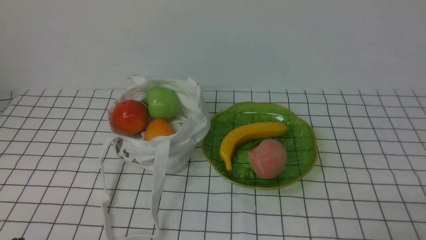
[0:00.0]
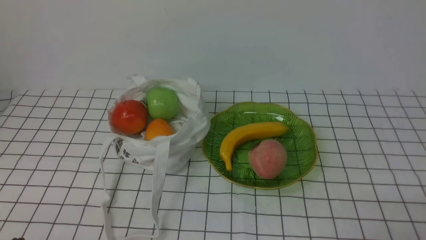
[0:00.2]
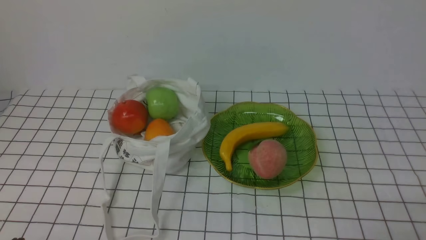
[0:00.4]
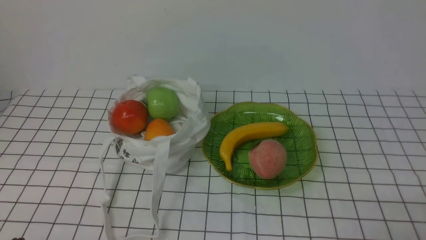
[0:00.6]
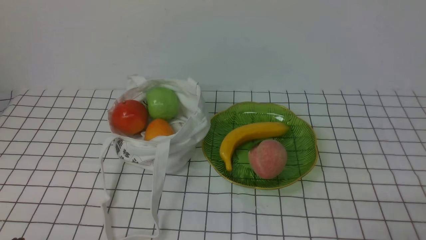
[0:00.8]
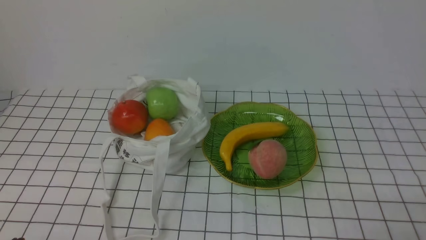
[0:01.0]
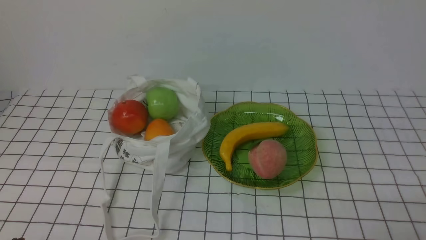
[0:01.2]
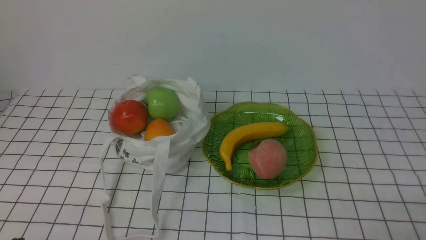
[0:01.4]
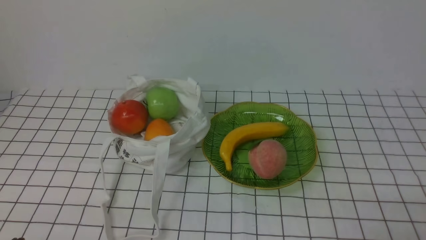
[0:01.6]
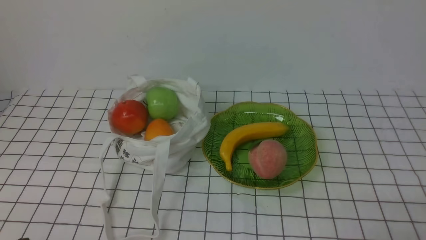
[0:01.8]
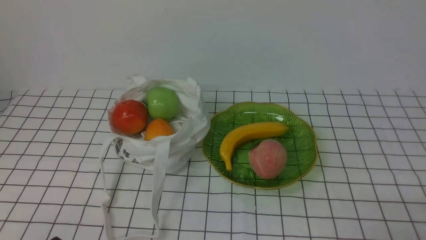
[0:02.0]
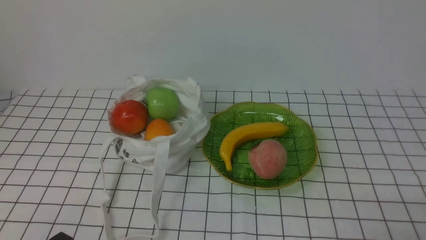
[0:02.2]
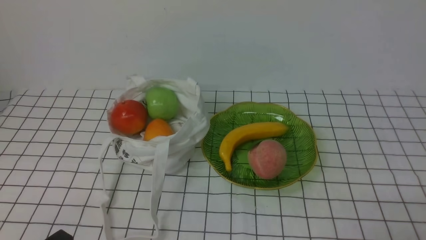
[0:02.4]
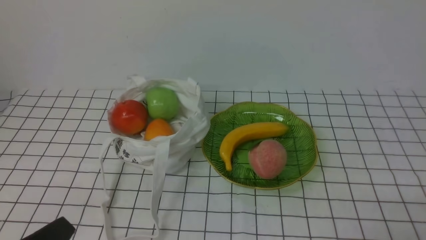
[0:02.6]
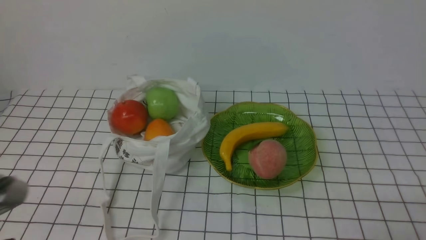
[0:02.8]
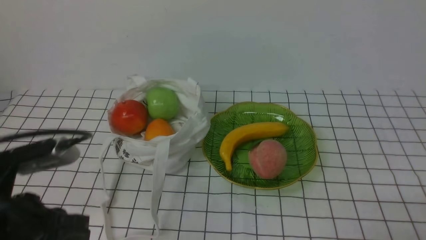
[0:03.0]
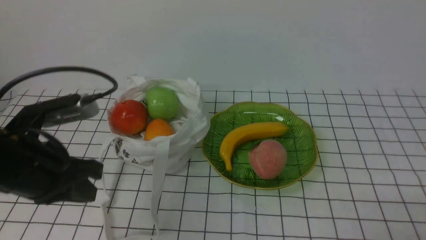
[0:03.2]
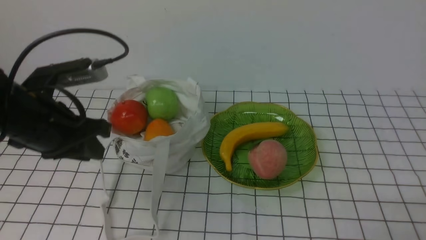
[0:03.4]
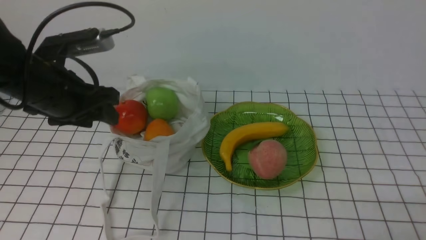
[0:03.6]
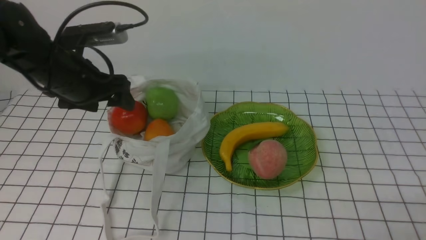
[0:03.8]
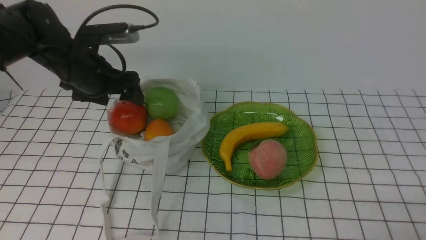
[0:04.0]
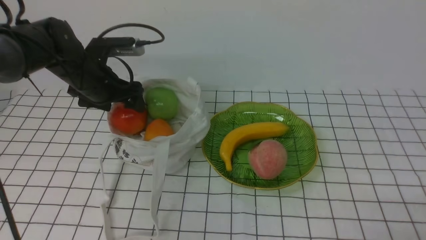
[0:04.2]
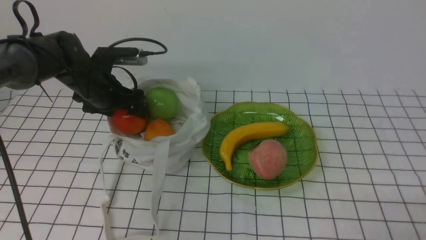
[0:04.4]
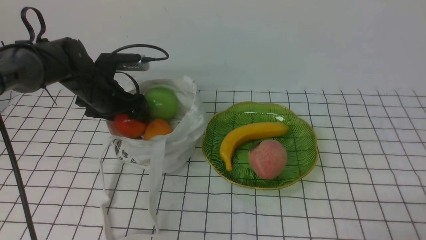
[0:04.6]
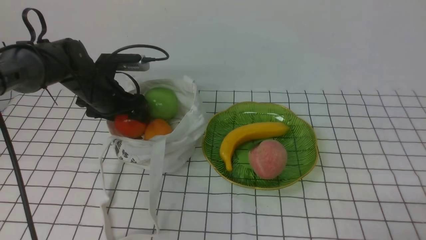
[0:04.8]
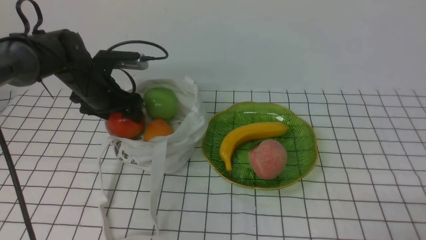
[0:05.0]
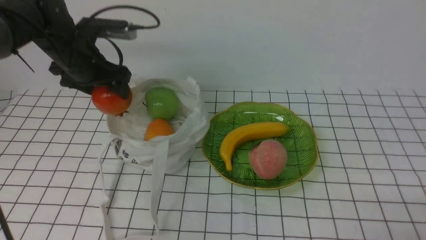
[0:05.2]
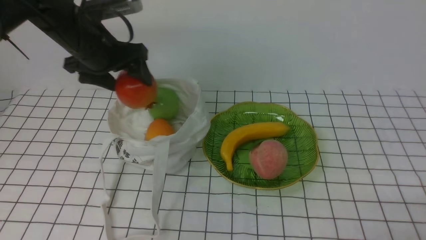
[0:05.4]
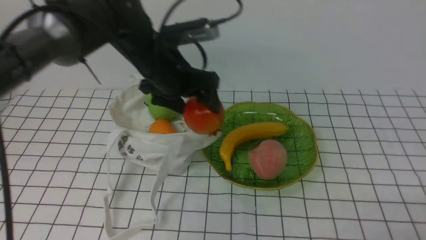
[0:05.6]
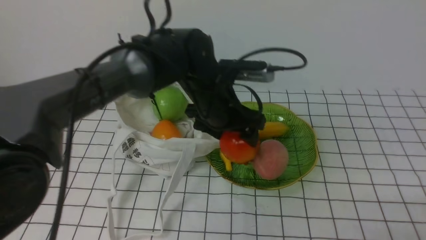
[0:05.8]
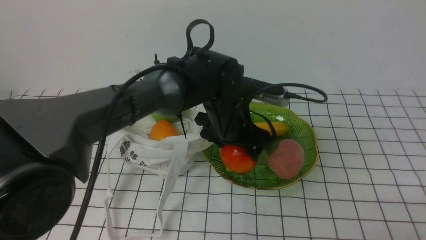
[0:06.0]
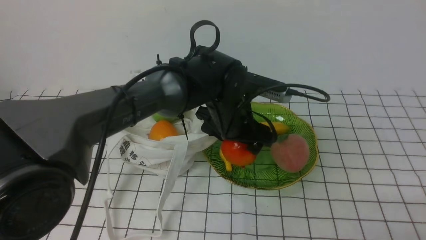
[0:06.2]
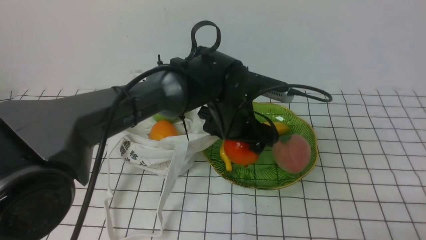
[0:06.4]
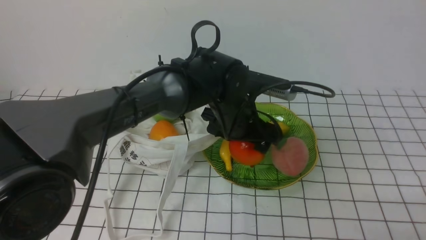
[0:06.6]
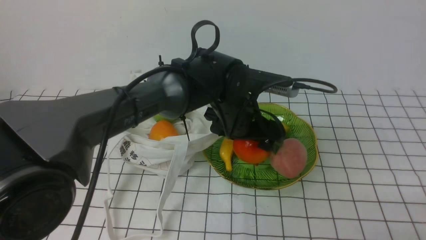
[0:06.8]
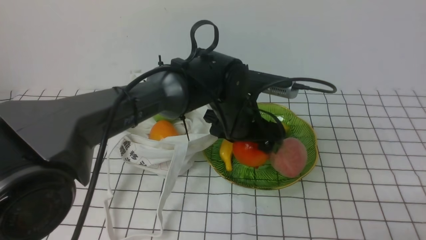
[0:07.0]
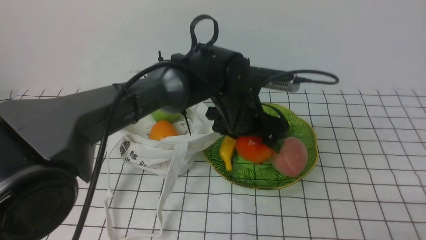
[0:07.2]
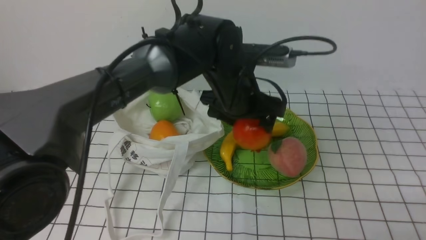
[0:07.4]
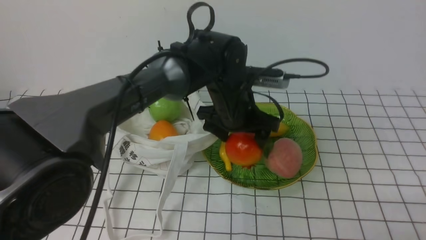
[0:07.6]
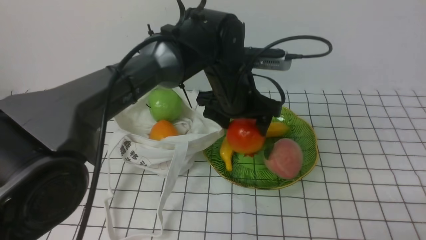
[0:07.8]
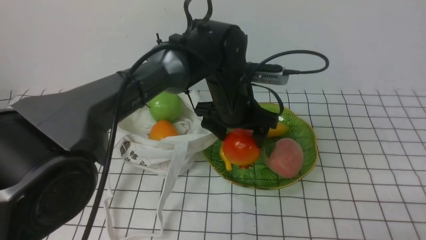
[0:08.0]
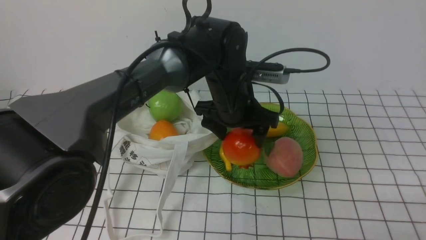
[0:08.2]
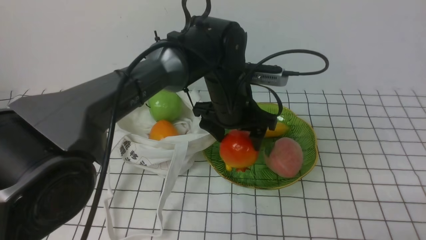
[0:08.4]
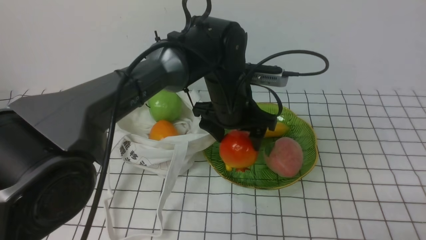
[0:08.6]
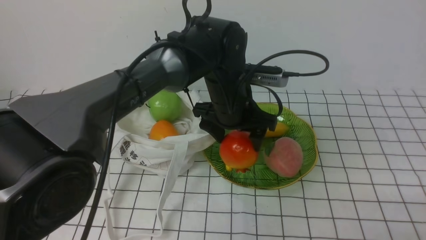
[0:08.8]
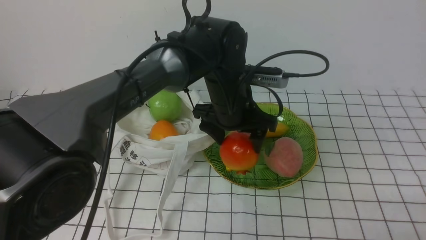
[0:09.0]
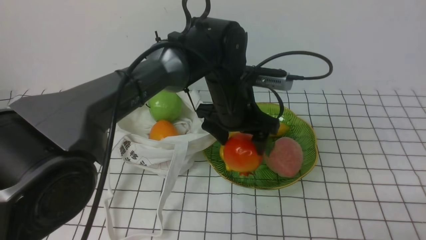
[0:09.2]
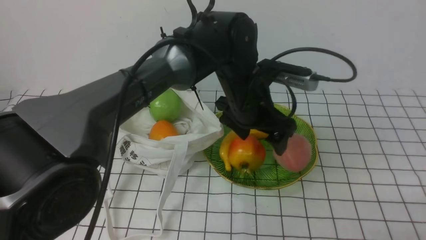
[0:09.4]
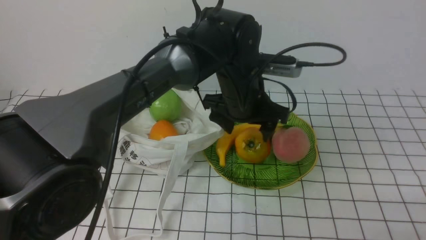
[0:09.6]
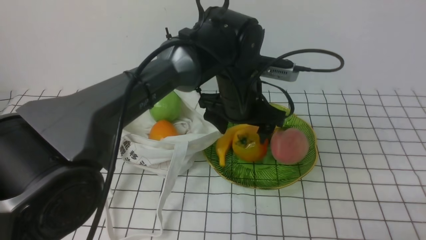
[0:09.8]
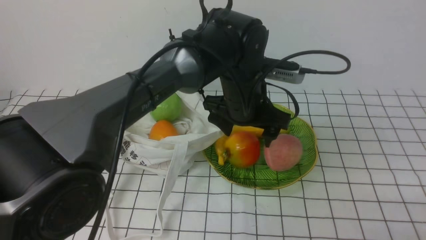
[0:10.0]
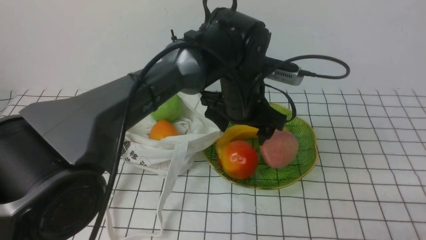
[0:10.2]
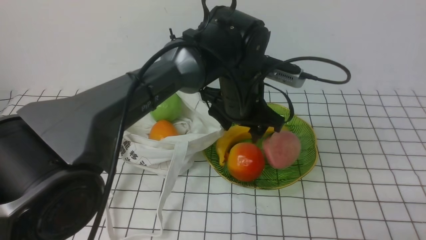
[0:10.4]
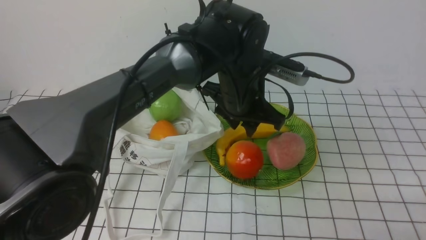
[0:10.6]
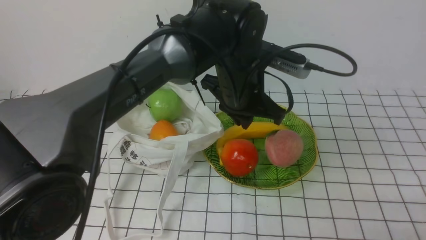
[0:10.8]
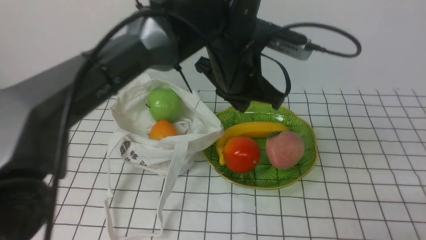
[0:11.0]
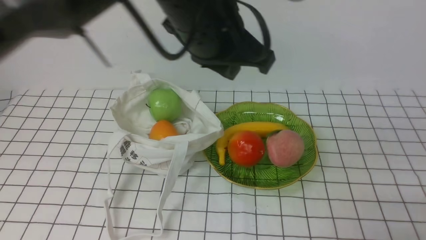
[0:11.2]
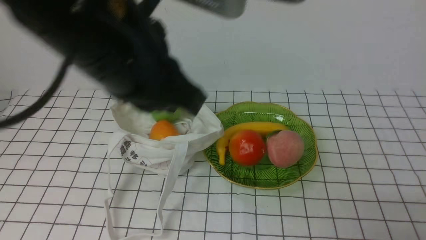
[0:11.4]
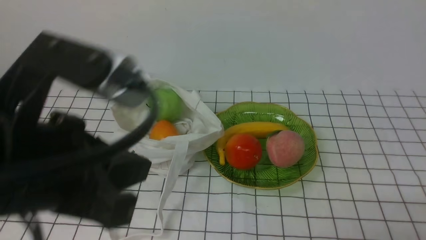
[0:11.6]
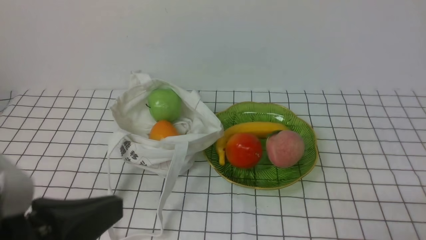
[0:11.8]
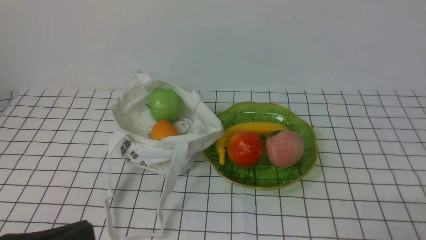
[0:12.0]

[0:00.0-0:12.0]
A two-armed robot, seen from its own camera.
Step, 0:00.0 to 0:05.0: use the left arm to grab a pomegranate from the bag.
Step, 0:05.2 to 0:09.8: use the left arm to put the pomegranate into the empty plate on the right.
0:01.6 to 0:03.0: The left gripper goes approximately 10 cm upward and forward.
0:03.0 to 0:04.4: The left gripper shifts approximately 30 cm forward, and opens its fingers.
0:04.4 to 0:06.0: The left gripper is displaced to the right by approximately 20 cm.
0:06.0 to 0:10.4: The grippers make only small movements.
0:10.4 to 0:12.0: The left gripper moves backward and to the left, some 40 cm, and closes.

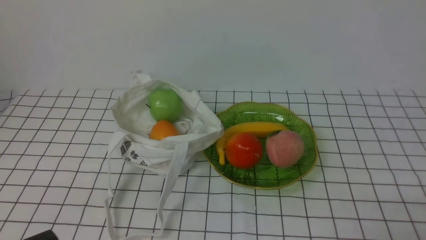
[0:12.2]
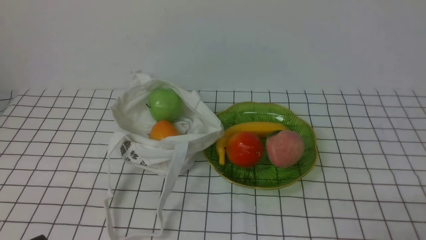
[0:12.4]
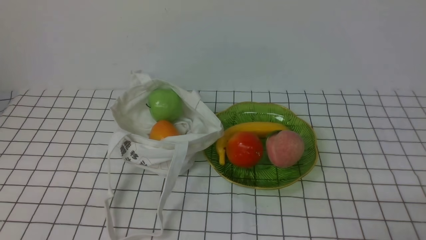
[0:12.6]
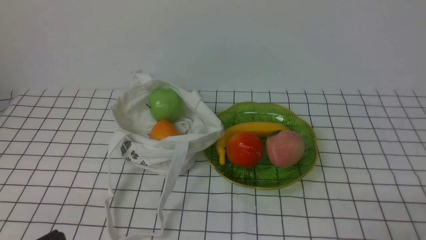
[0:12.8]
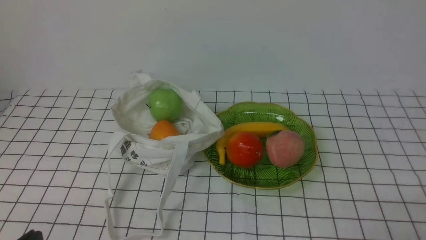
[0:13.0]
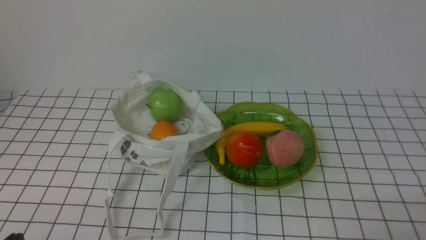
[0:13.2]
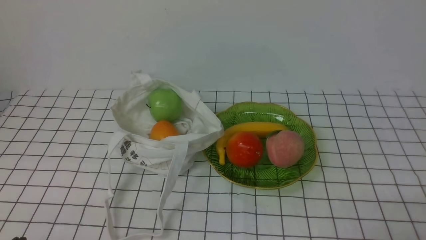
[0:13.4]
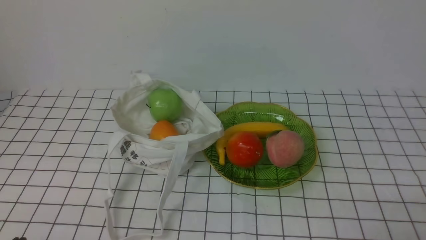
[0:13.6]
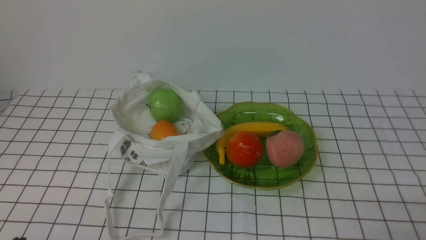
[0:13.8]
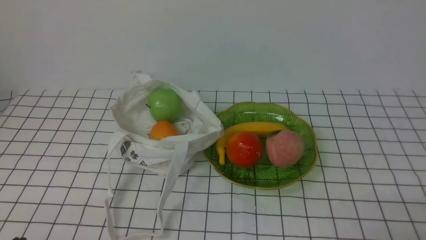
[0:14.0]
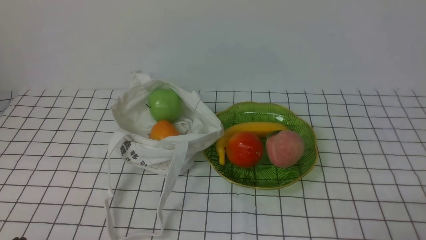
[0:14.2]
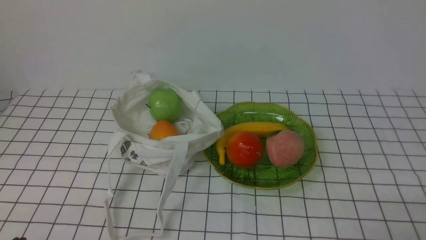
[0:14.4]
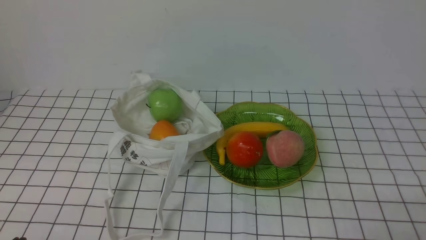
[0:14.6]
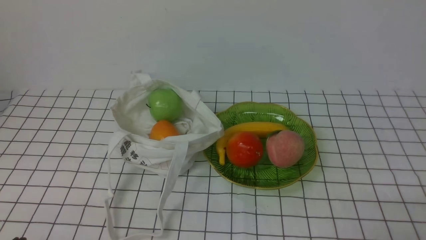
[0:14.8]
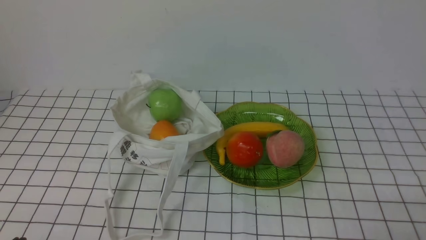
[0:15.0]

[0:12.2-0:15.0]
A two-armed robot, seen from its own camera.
0:13.6 to 0:15.0: Both grippers stay put.

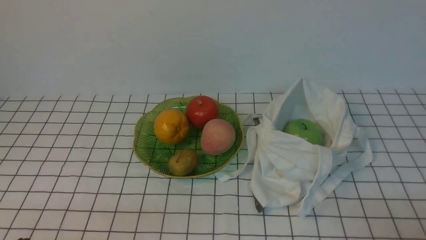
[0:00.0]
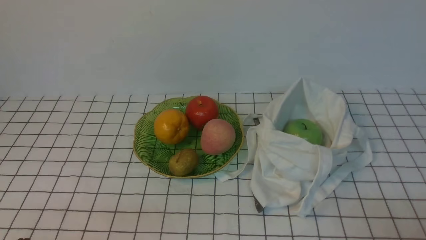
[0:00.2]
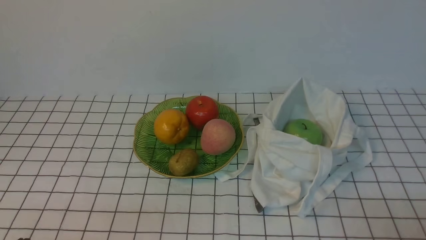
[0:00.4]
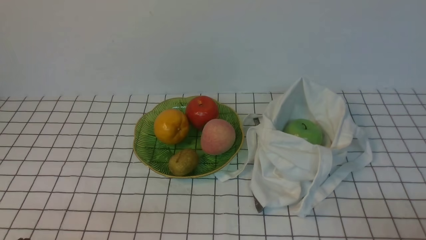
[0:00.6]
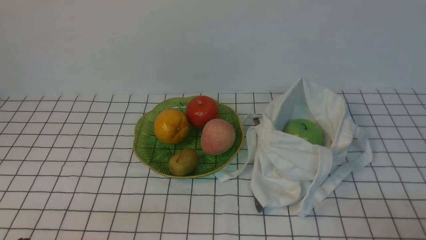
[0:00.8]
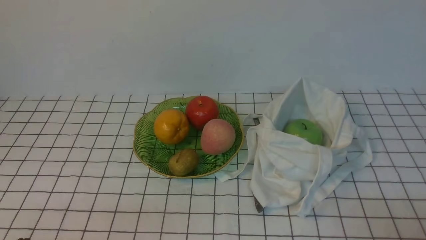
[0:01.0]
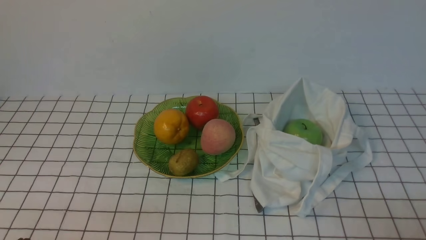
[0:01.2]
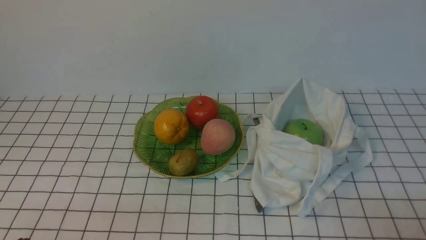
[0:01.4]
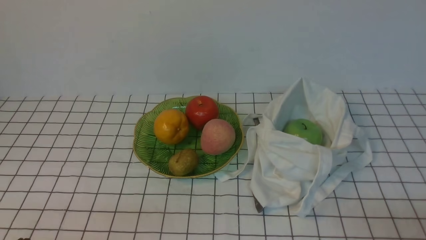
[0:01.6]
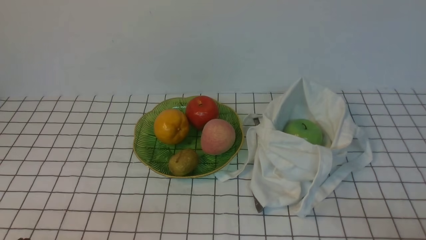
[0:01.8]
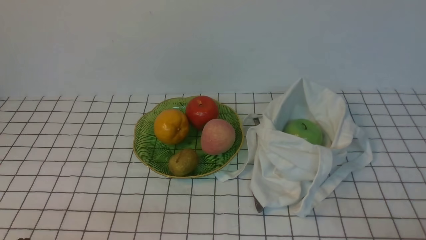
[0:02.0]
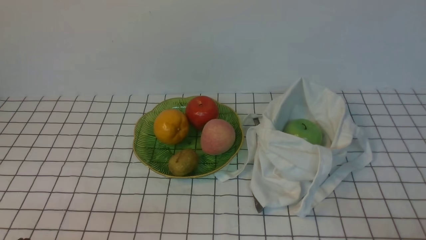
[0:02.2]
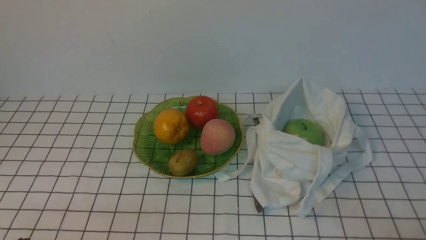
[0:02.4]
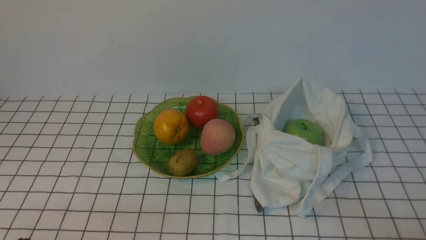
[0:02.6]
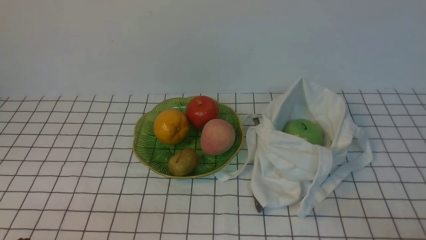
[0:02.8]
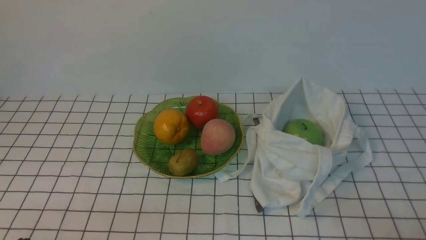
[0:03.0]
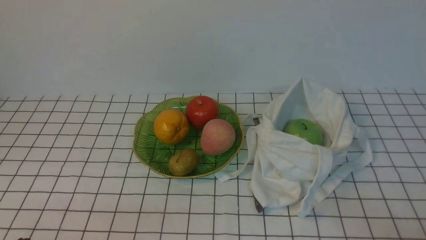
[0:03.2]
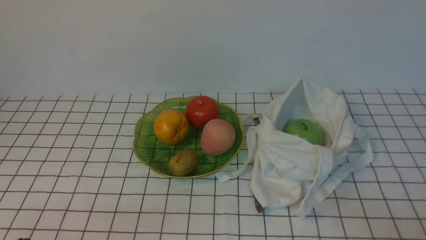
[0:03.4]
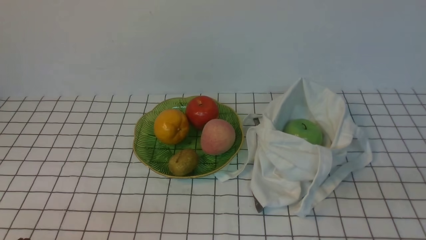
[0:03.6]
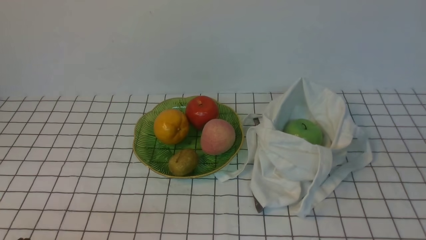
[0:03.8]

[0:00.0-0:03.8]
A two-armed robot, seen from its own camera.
0:00.0 to 0:01.2: Both grippers stay about where they are.
